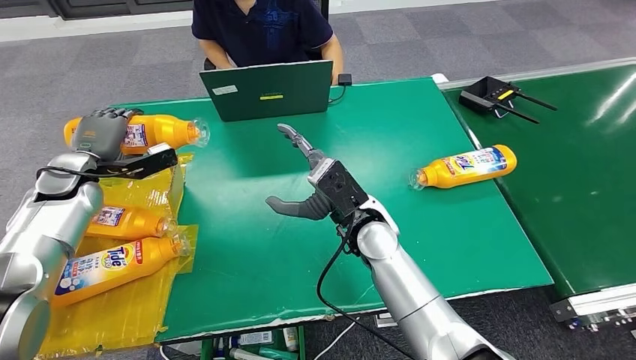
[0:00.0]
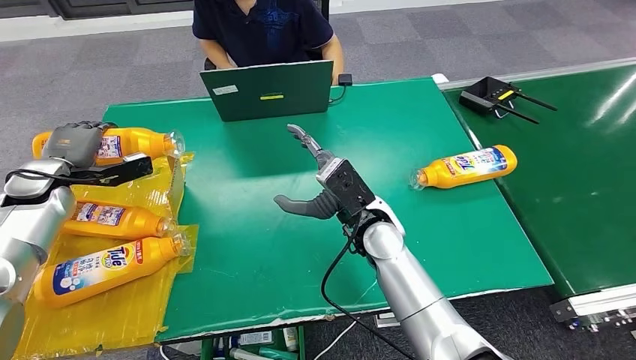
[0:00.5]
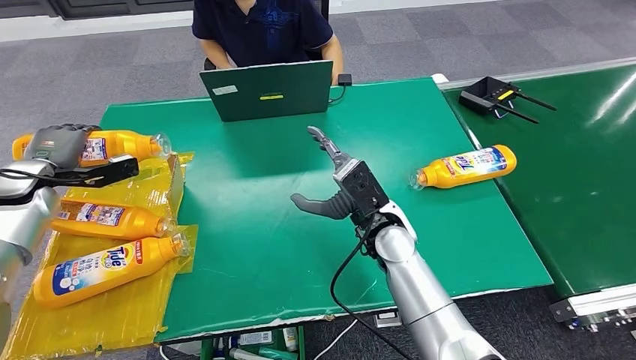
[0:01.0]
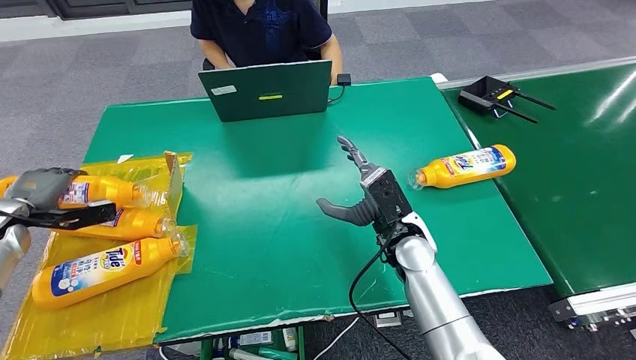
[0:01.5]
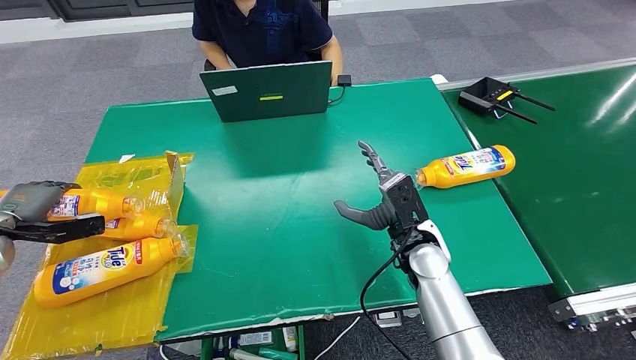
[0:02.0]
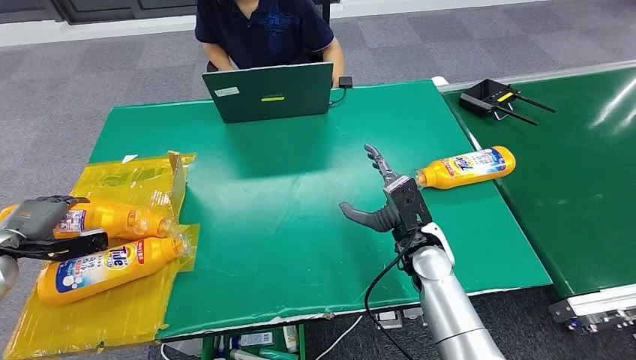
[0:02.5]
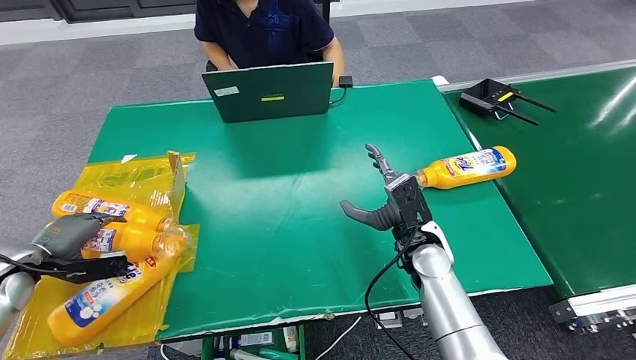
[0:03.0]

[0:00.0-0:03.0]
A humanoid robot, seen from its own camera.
Step, 0:00.0 to 0:03.0: Turn the bottle to the front side.
0:00.0 to 0:01.5: The left hand travels to the left and backward by about 15 cm. The right hand goes approximately 5 cm to the right.
